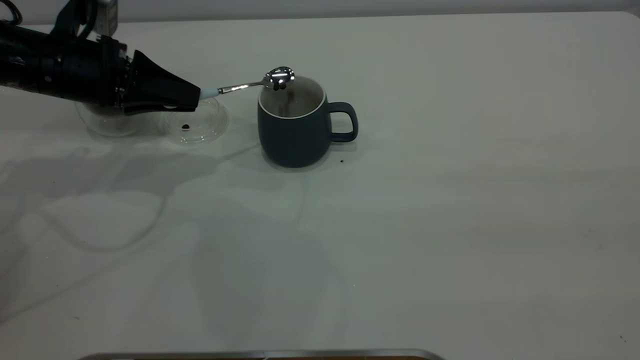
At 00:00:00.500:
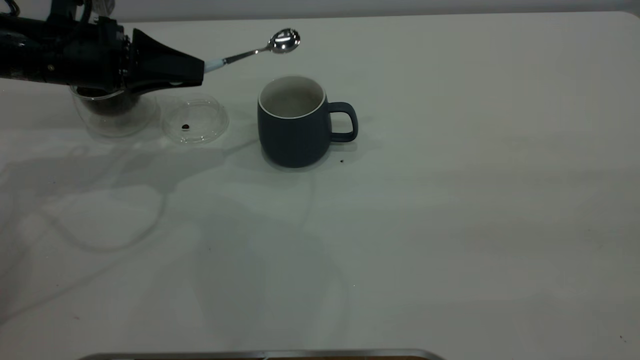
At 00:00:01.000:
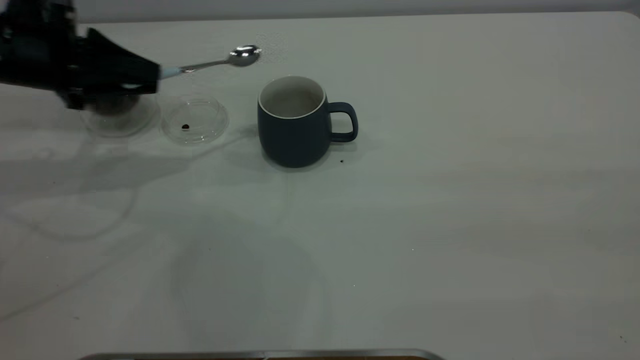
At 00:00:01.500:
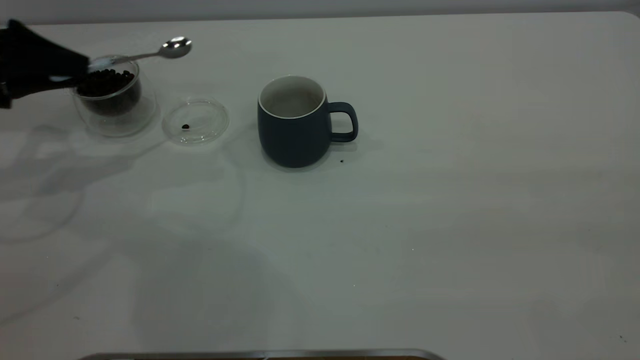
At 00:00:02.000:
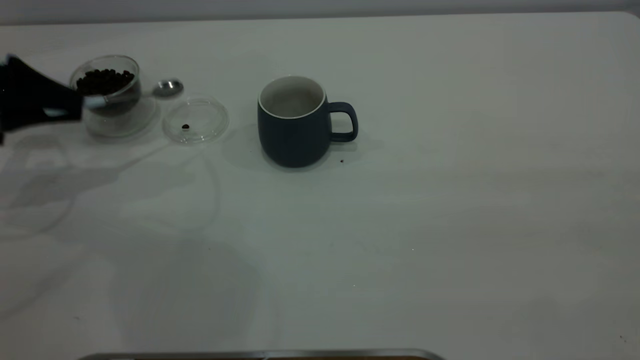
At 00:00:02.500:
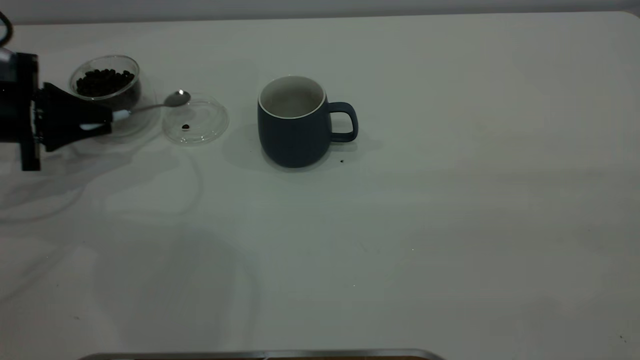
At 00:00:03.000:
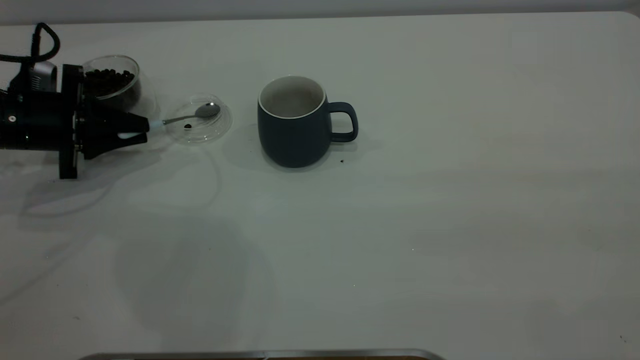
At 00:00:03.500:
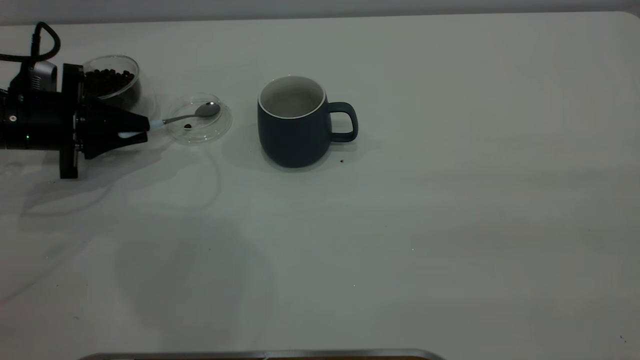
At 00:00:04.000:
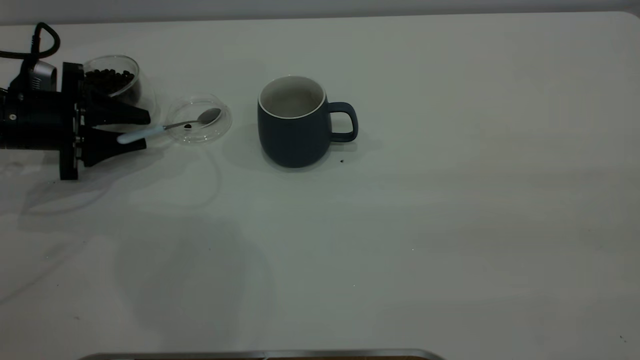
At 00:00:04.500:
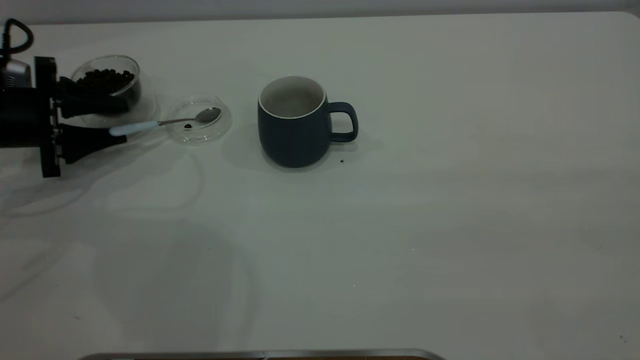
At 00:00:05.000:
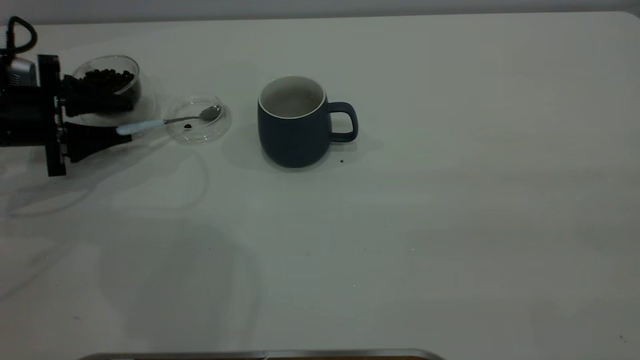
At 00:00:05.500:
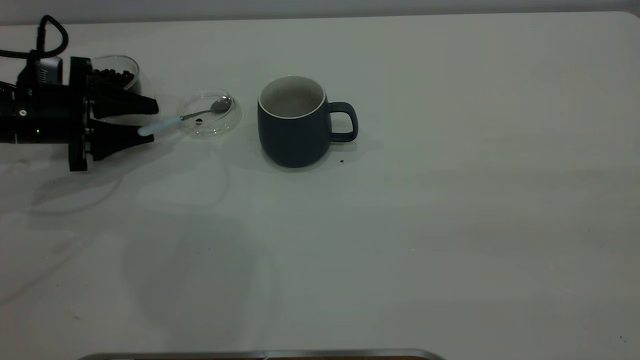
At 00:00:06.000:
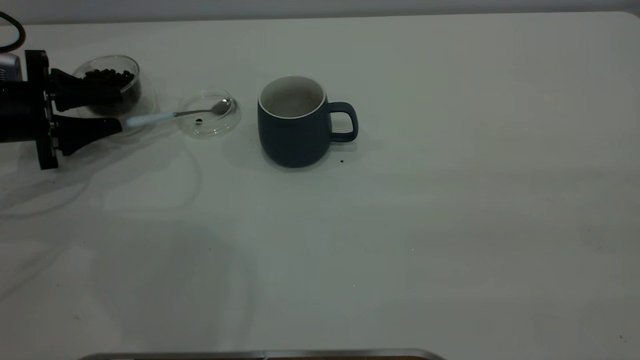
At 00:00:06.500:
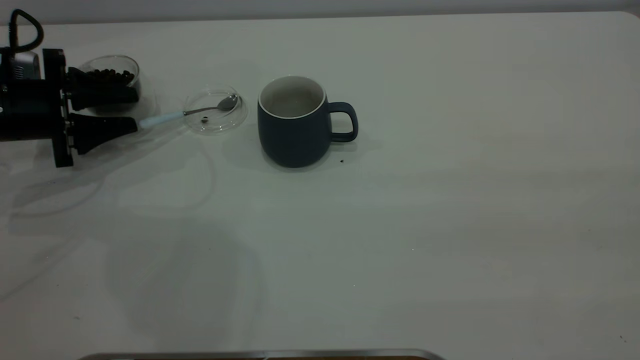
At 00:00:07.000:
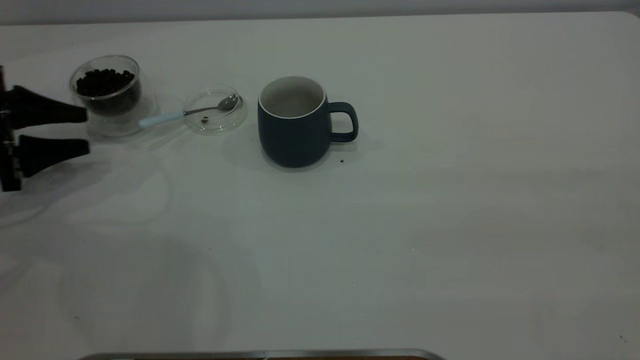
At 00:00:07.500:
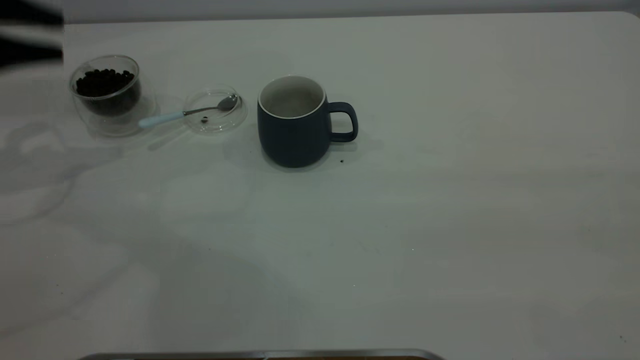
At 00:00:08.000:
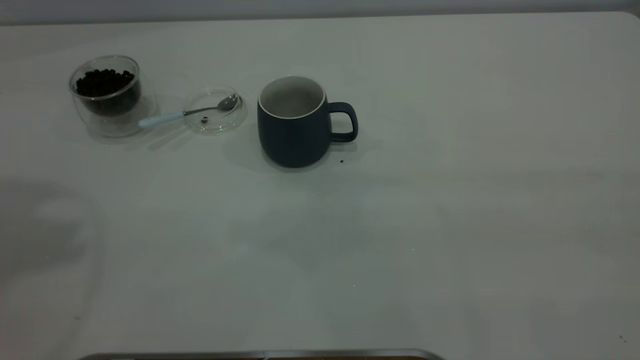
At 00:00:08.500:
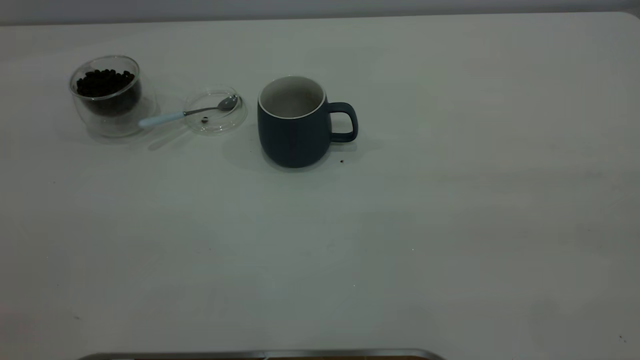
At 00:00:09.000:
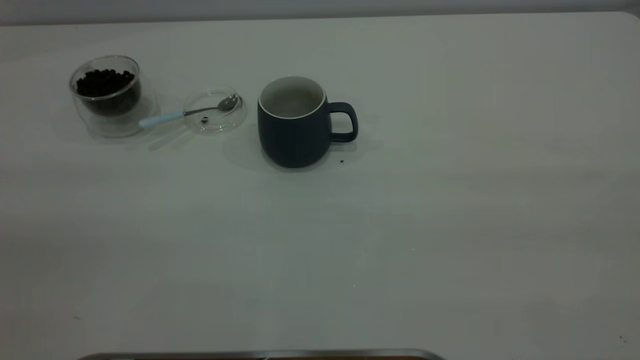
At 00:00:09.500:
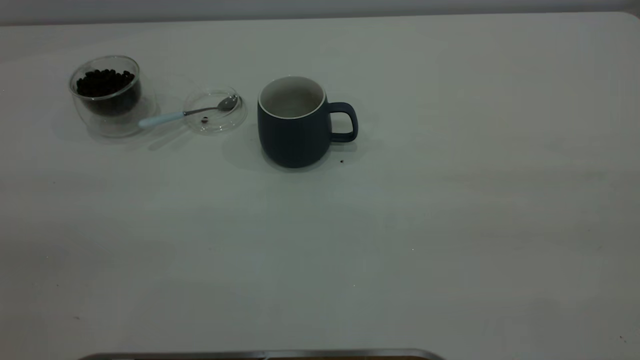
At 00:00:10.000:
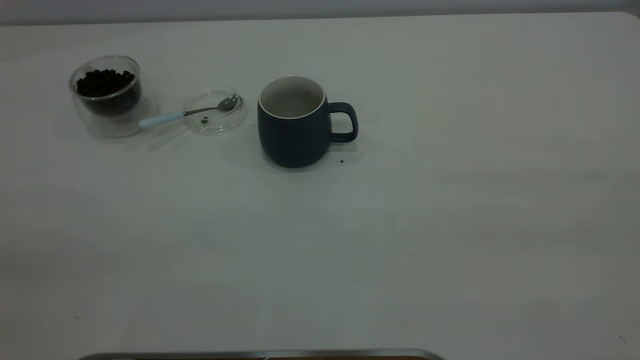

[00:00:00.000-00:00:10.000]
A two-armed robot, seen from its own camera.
Task of the whole recording: the right gripper place the grey cup in the center of the table, the left gripper take the blue spoon from the cup lid and scoop out the coffee beans from the coffee cup and put them into the grey cup, the left gripper put the spoon back into the cup lid.
Step, 00:00:00.500 to 00:00:07.000: Place the spoon back in its original place.
00:00:00.000 to 00:00:02.000: The left gripper shifts roughly 10 cm to the left.
00:00:02.000 to 00:00:04.000: The left gripper goes roughly 5 cm downward, and opens up.
00:00:04.000 to 00:00:06.000: The grippers make only small movements.
00:00:06.000 to 00:00:08.000: The left gripper moves upward, roughly 40 cm.

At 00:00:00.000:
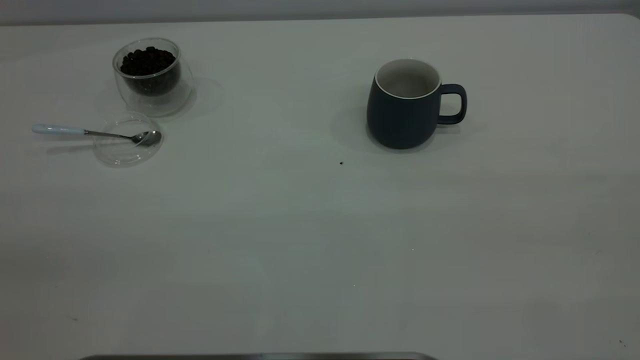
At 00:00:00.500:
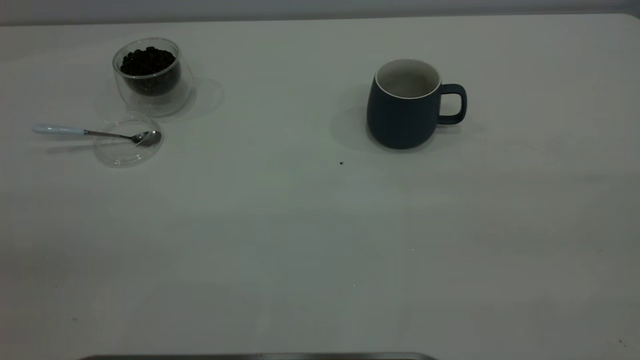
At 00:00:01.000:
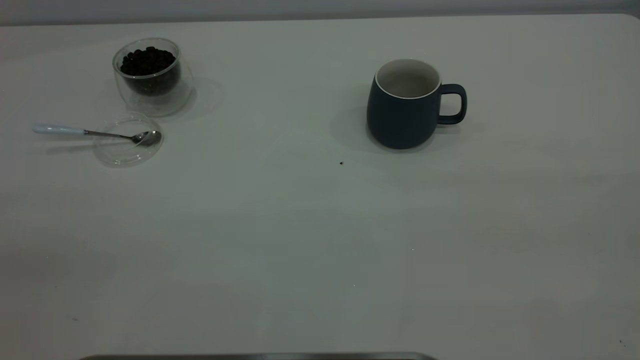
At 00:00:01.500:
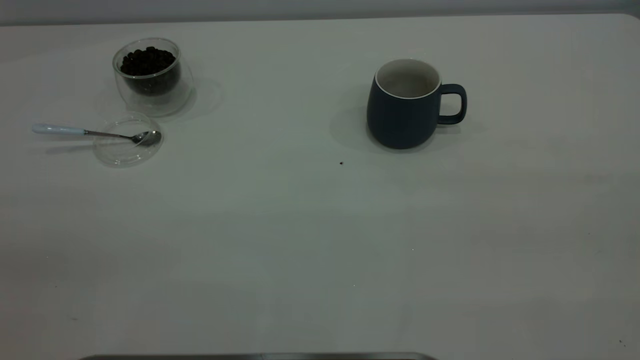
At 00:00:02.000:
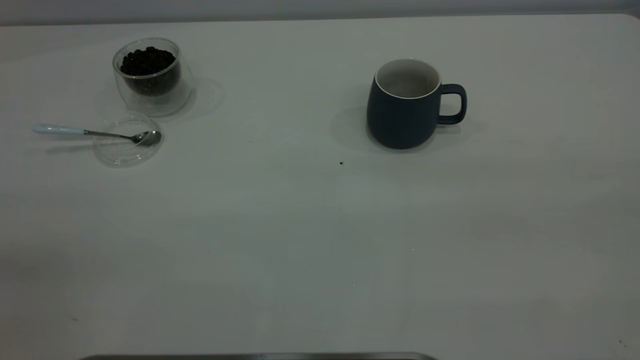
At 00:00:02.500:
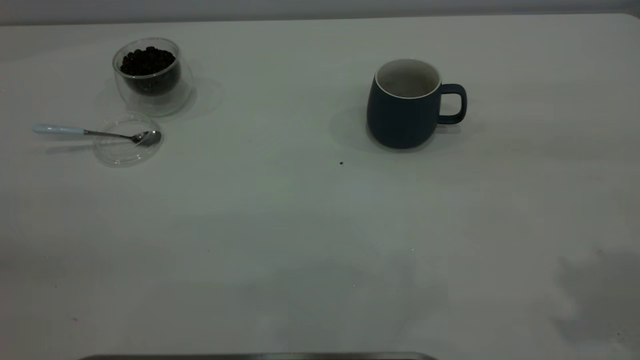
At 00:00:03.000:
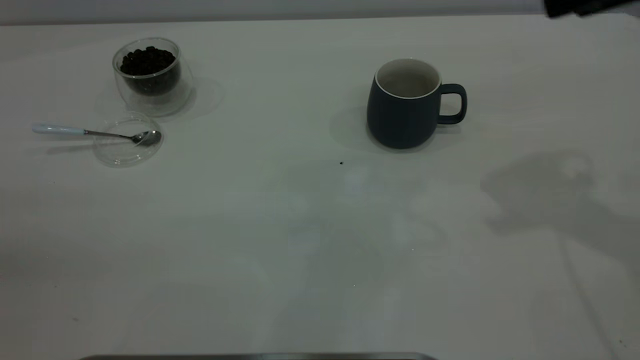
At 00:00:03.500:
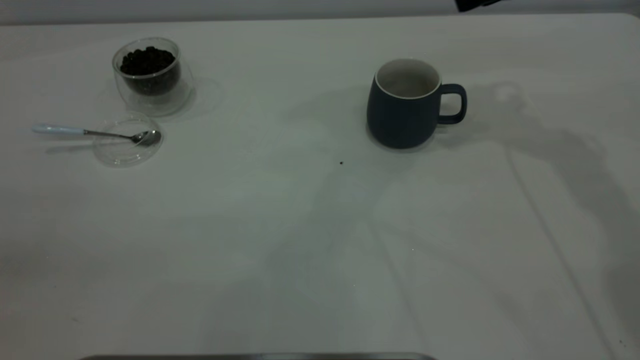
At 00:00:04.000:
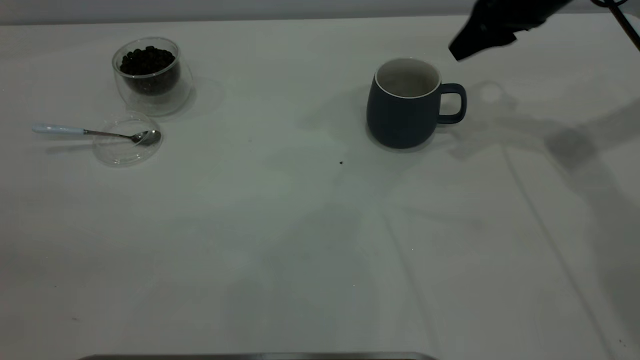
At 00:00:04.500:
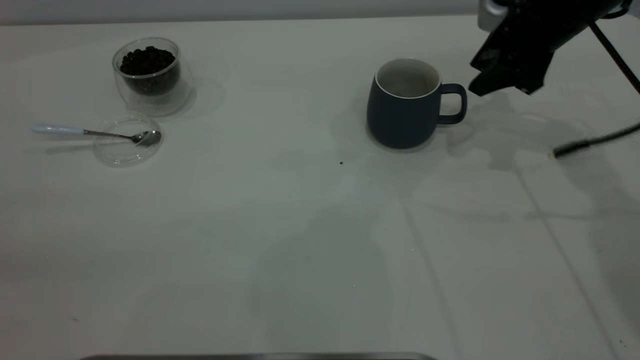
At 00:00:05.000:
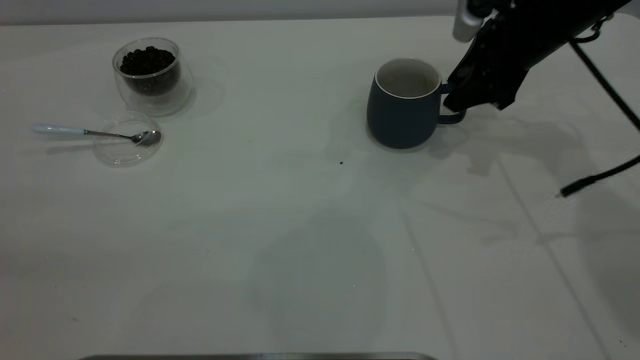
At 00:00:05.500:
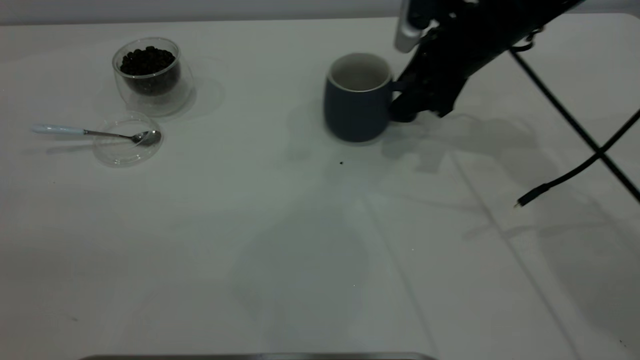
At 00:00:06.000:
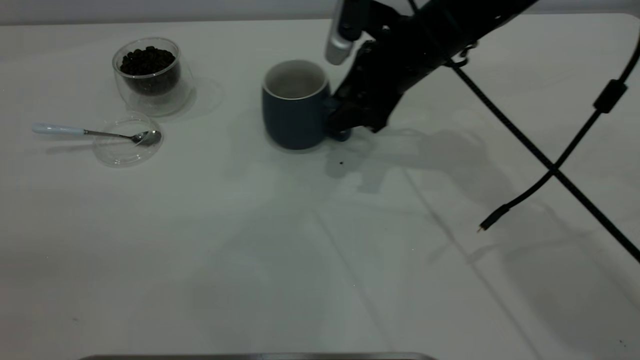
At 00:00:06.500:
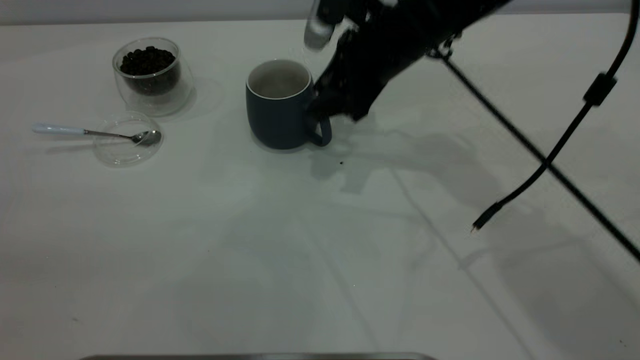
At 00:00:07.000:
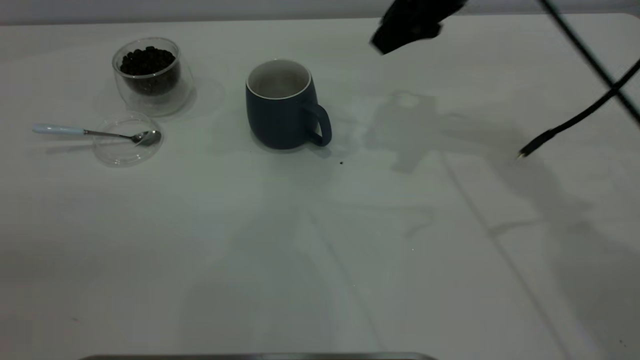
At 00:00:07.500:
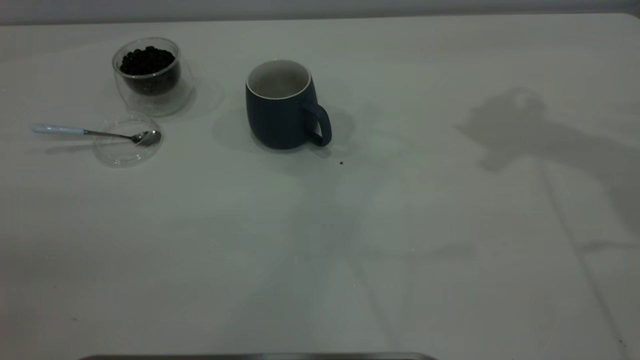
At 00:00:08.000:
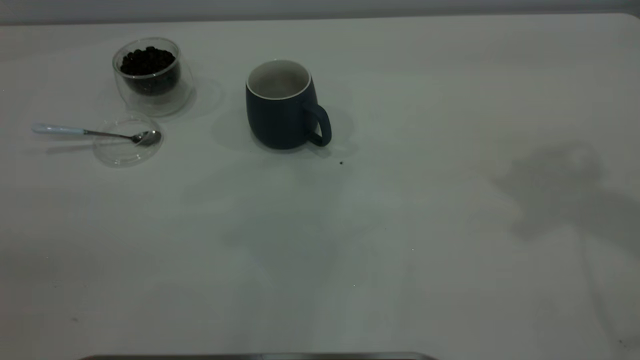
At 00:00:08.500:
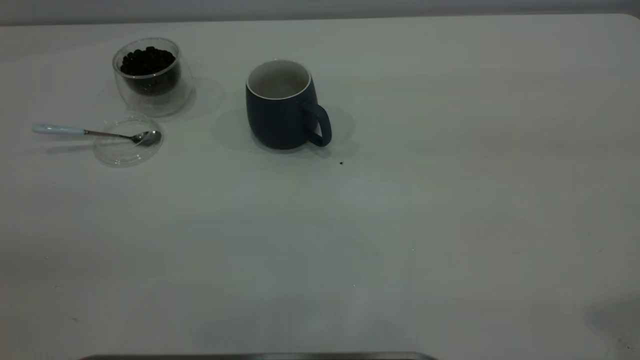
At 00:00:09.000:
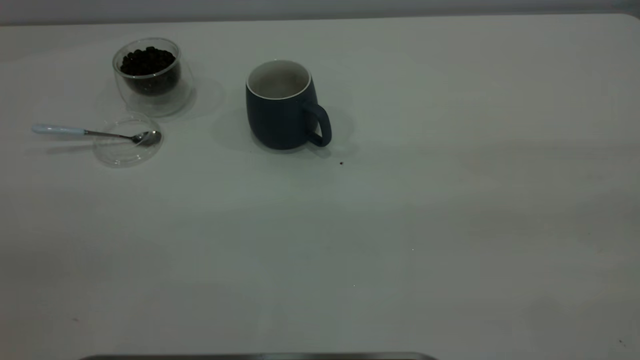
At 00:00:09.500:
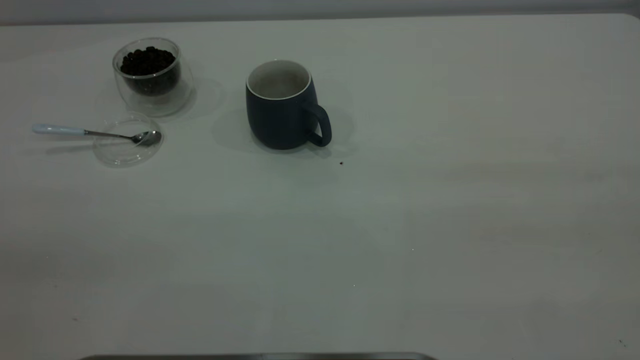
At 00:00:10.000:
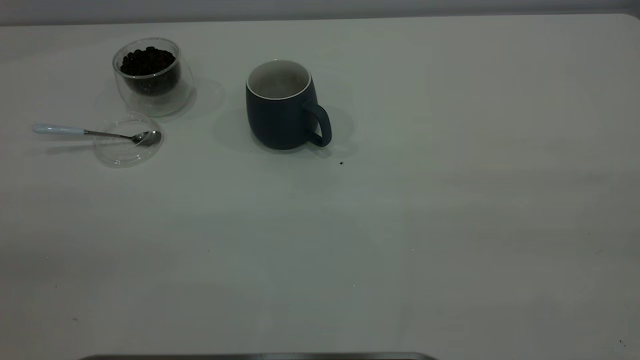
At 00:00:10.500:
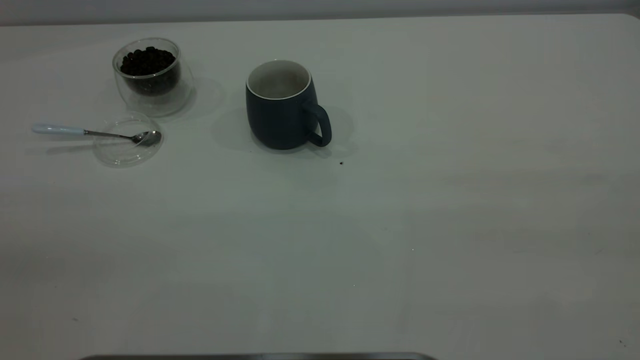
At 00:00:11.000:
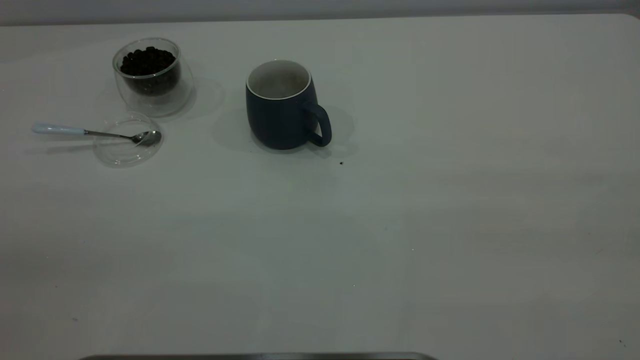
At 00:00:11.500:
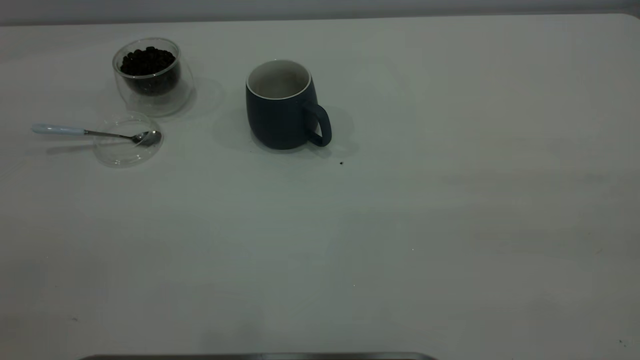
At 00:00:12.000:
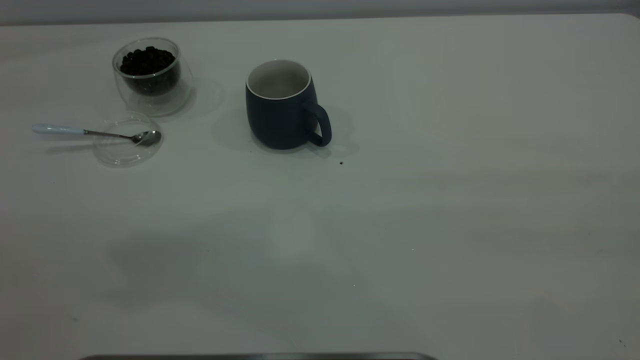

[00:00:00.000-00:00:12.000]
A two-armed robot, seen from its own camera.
Task of the whole recording: the right gripper place the grey cup in the center of the table, the left gripper take the blue spoon from the cup lid and scoop out the coffee beans from the coffee cup and put them into the grey cup, the left gripper put the spoon back into the cup lid.
Step, 00:00:00.000 to 00:00:06.500: Move the cup to the center of view.
00:00:02.000 to 00:00:04.000: The right gripper heads forward and downward, covering roughly 50 cm.
00:00:04.000 to 00:00:06.000: The right gripper moves to the left and downward, some 15 cm.
00:00:06.000 to 00:00:08.000: The right gripper heads upward, to the right and backward, covering roughly 35 cm.
